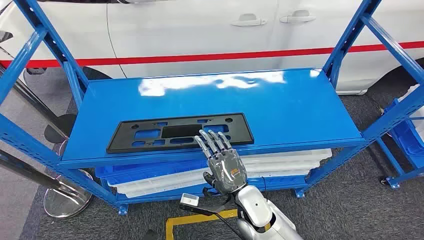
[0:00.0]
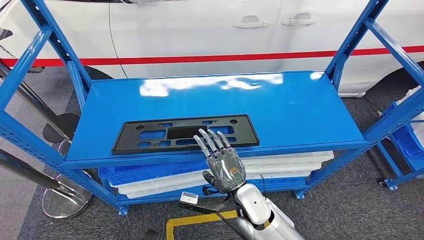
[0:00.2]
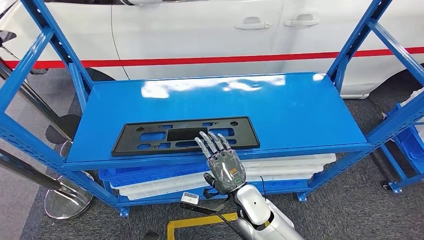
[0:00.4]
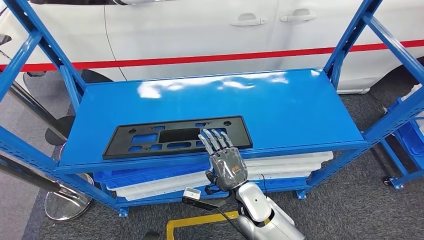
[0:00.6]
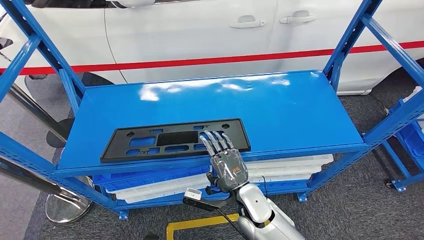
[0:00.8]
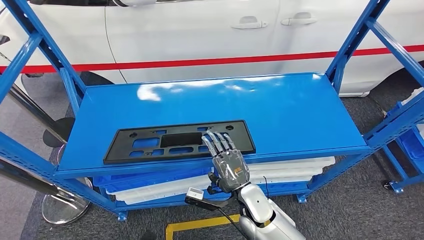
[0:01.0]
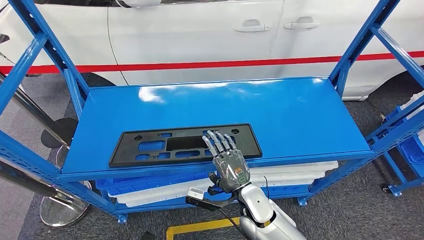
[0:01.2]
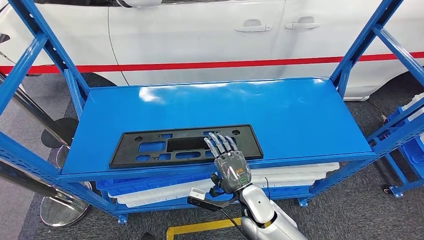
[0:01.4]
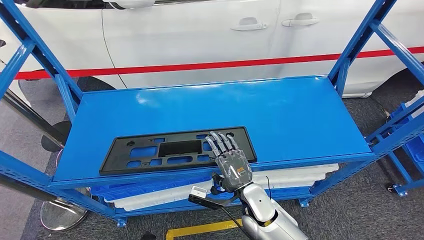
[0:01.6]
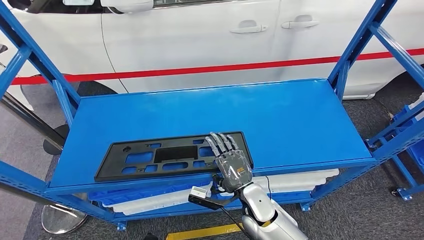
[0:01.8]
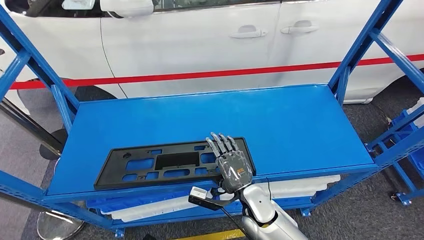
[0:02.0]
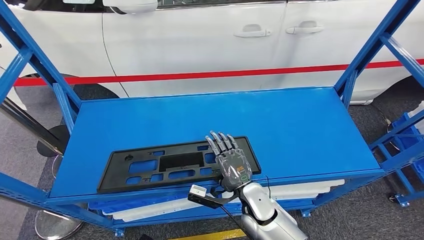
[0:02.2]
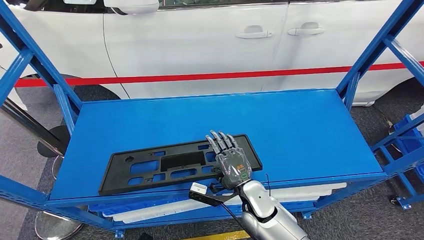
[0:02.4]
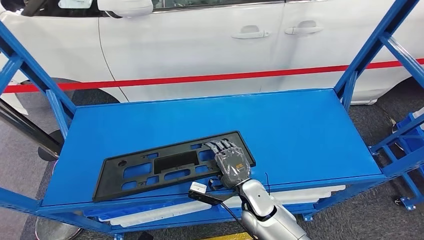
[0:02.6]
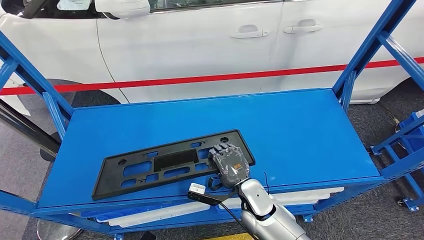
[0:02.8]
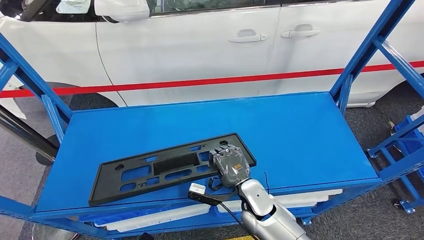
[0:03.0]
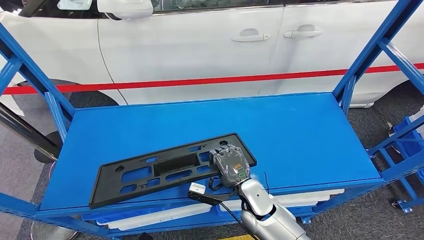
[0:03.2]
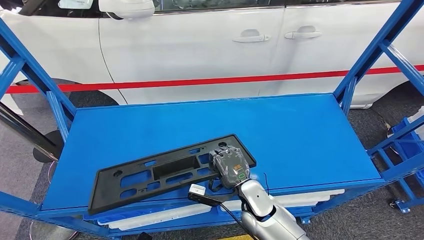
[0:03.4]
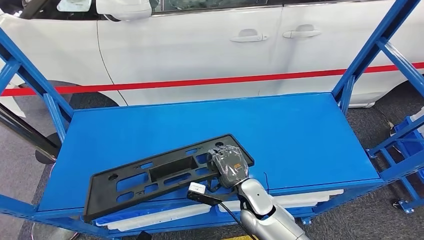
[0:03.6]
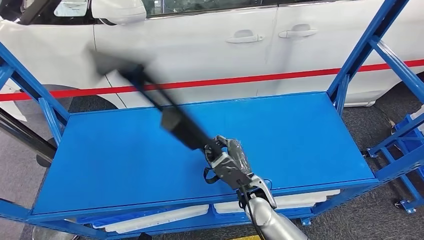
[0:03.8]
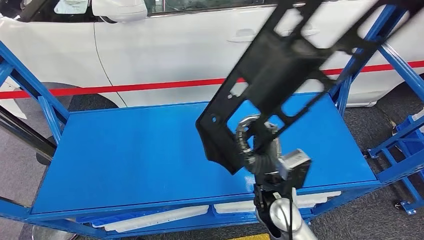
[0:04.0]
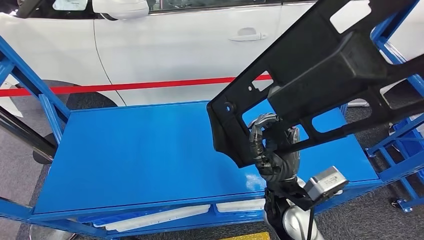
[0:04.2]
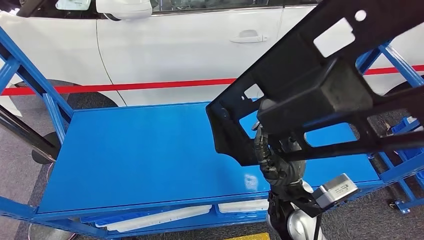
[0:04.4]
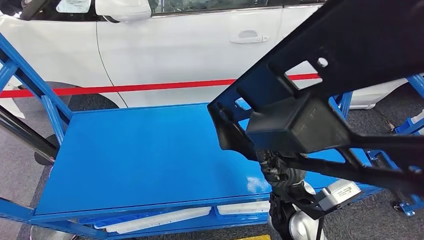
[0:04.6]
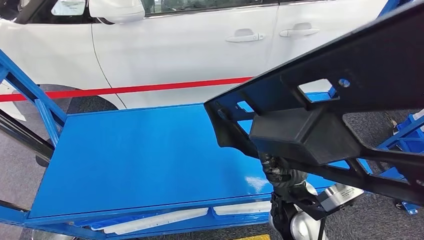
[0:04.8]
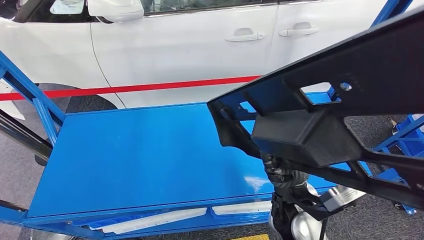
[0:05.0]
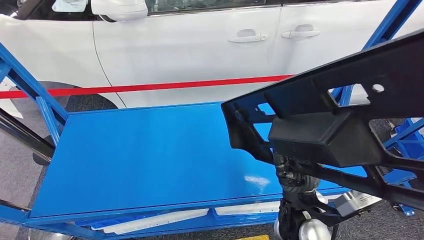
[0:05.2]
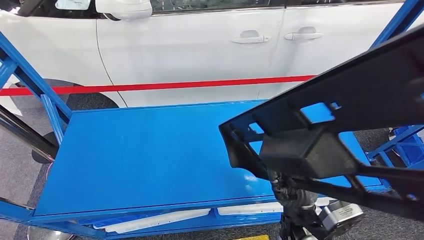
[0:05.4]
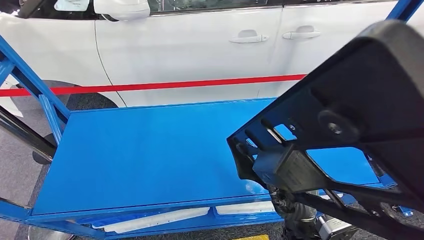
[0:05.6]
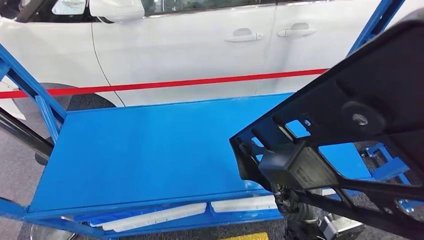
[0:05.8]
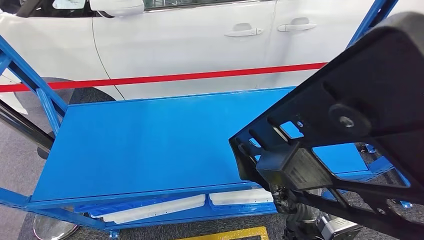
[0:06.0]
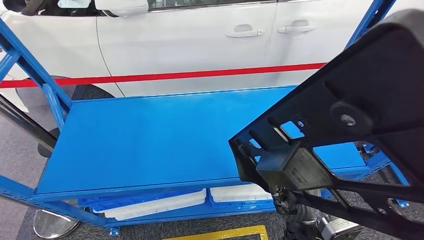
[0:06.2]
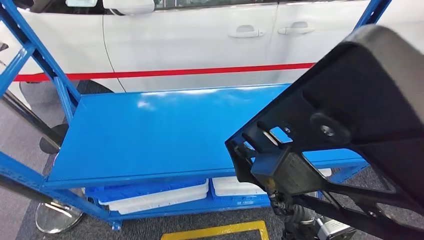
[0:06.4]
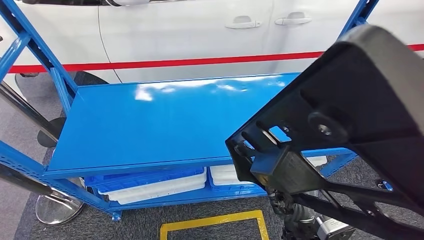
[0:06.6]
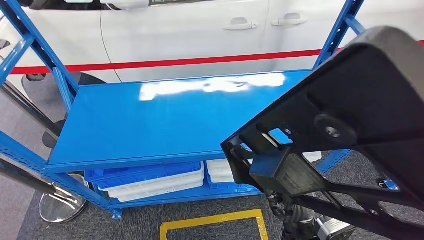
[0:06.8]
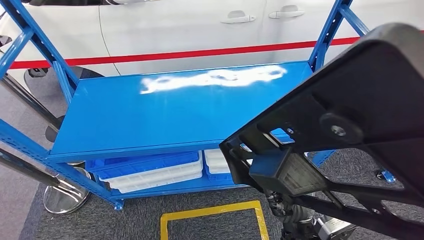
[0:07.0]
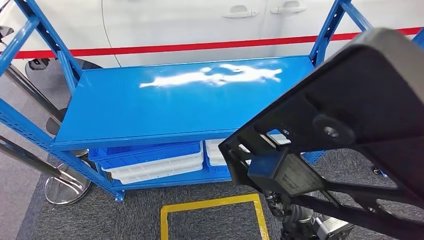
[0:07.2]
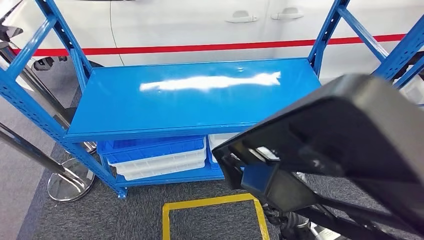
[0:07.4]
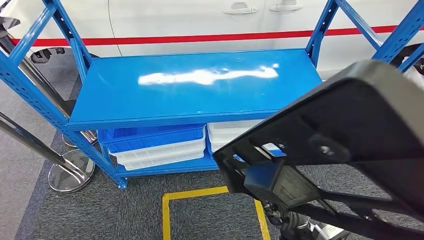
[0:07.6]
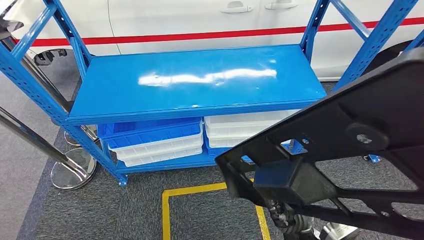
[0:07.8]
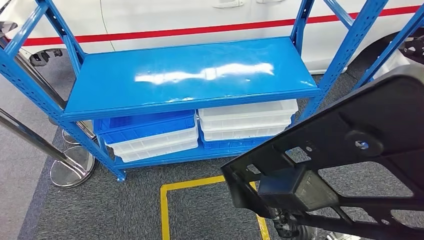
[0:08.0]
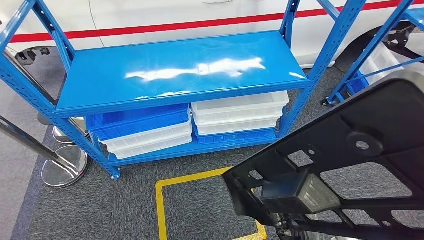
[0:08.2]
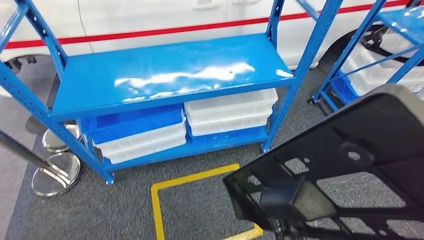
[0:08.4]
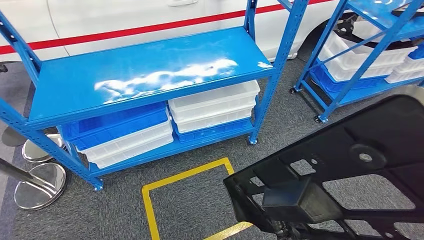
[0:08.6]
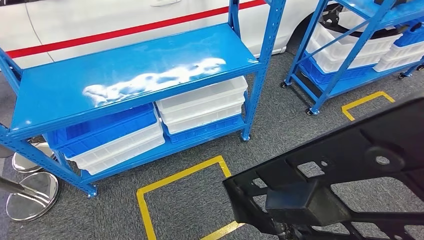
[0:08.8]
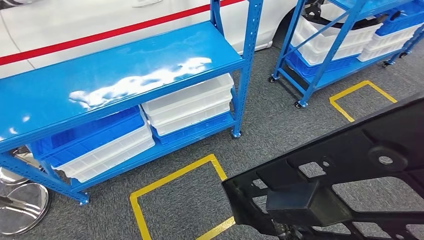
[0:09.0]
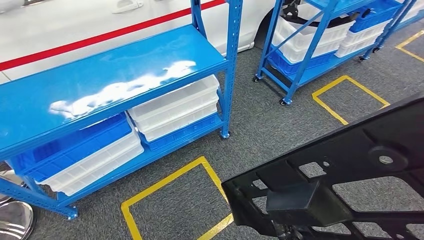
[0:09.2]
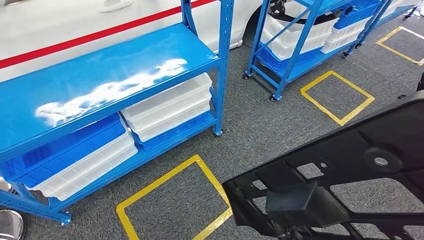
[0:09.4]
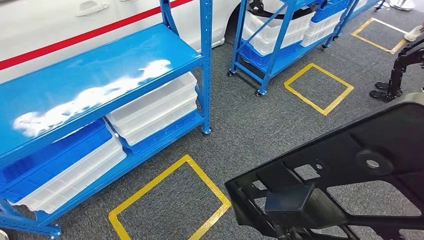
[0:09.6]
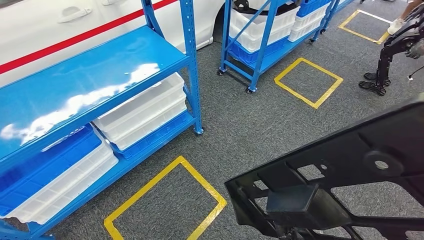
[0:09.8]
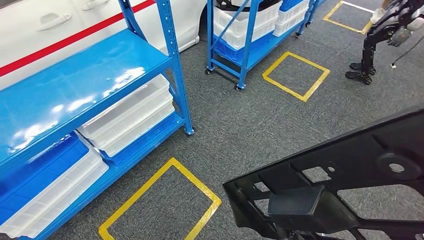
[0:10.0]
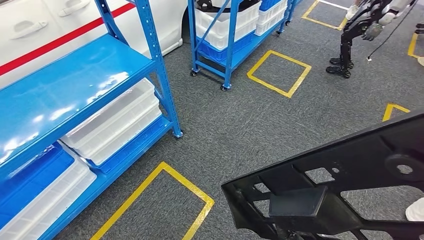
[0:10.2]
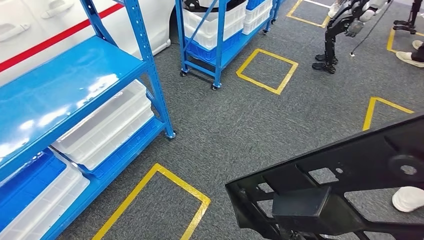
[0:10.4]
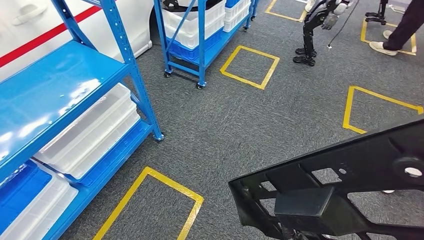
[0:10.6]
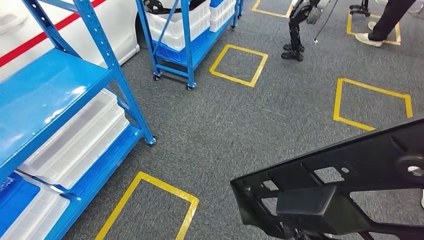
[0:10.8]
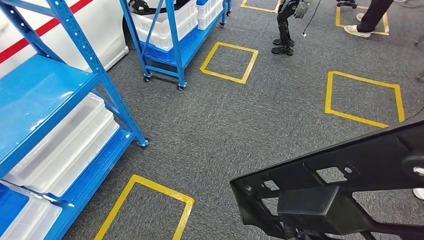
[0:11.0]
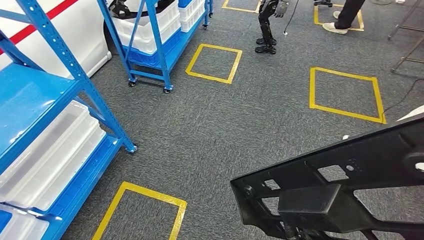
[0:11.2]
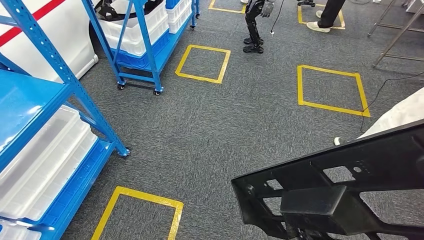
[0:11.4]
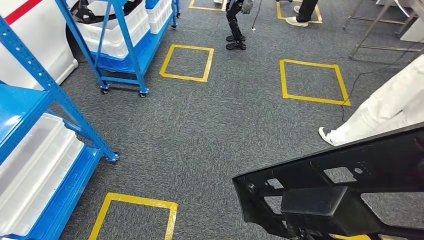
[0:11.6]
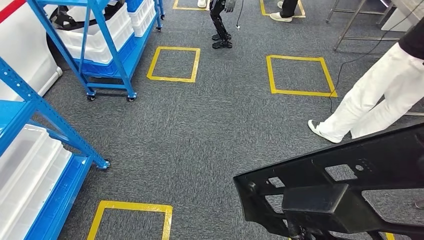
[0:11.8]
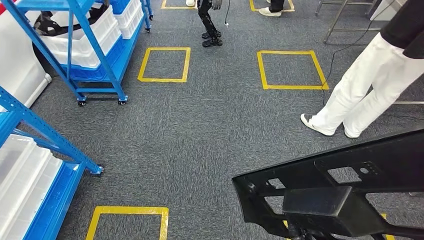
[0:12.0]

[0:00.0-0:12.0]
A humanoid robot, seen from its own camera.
Step, 0:00.0 to 0:04.0: Pick up the large material from the shelf.

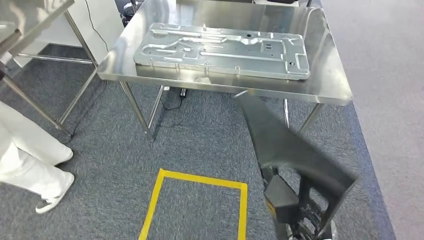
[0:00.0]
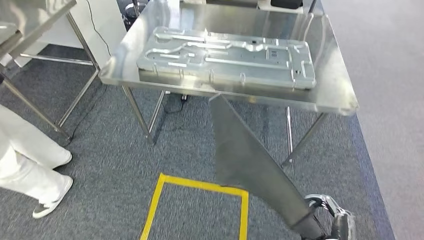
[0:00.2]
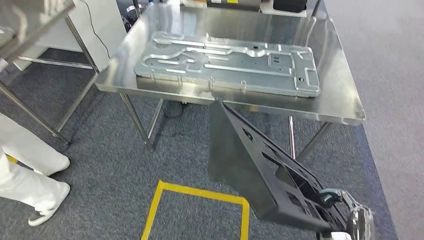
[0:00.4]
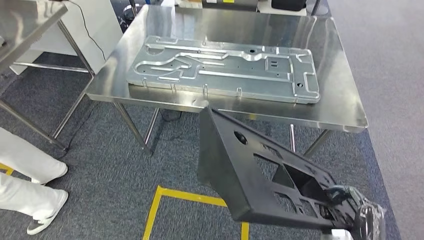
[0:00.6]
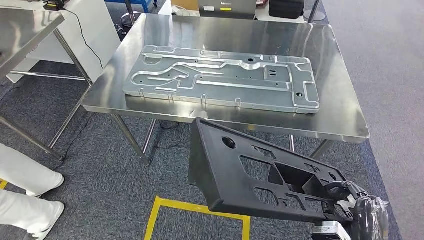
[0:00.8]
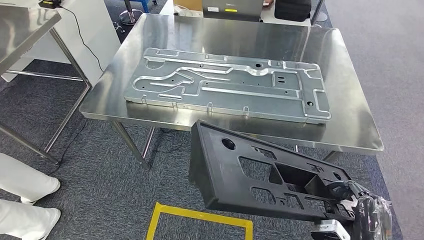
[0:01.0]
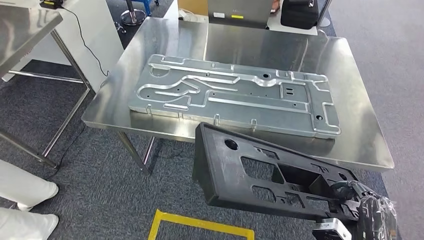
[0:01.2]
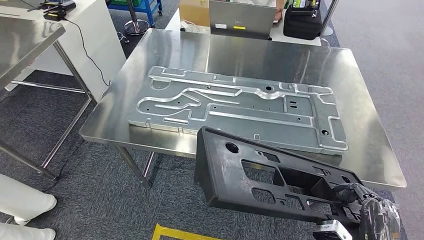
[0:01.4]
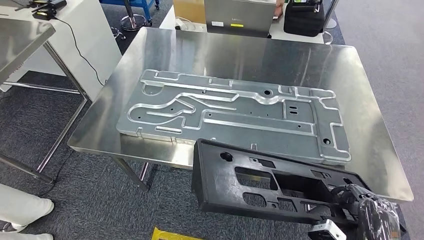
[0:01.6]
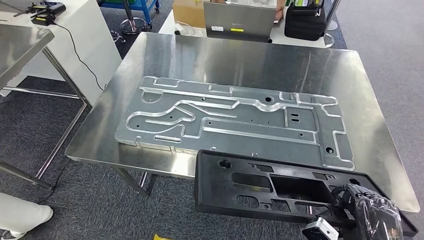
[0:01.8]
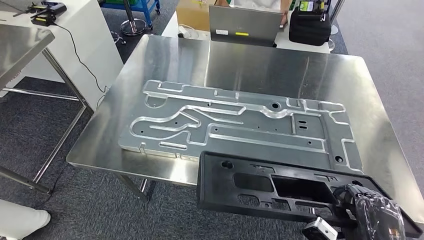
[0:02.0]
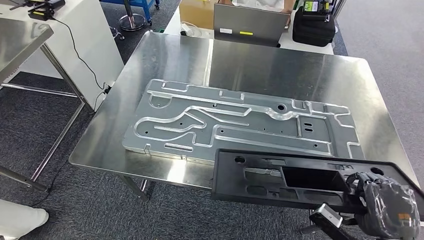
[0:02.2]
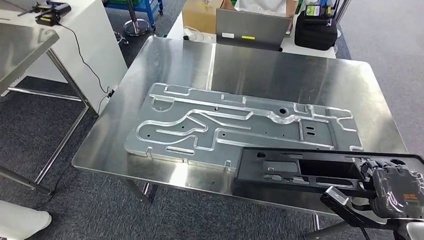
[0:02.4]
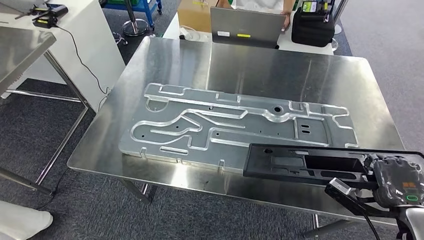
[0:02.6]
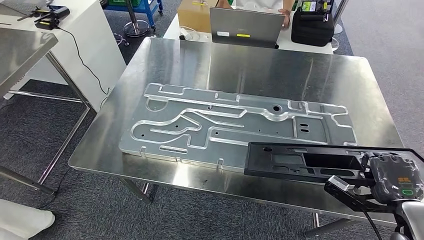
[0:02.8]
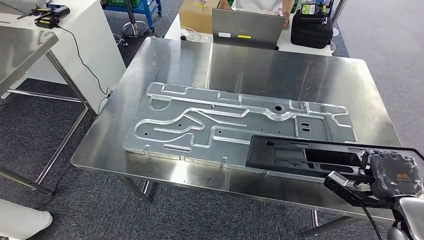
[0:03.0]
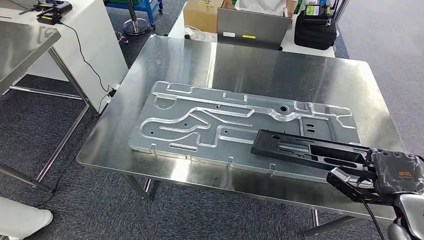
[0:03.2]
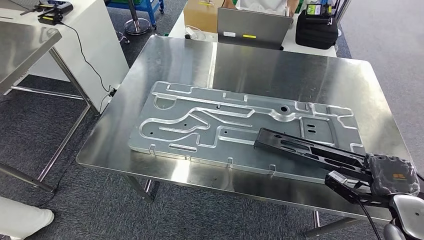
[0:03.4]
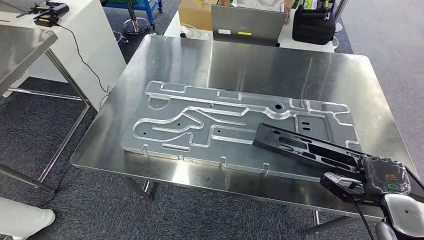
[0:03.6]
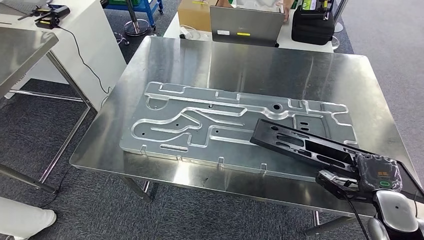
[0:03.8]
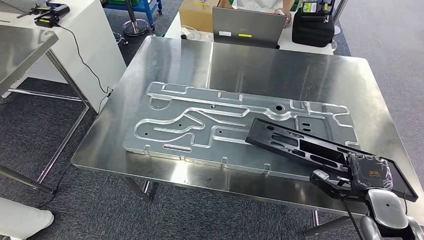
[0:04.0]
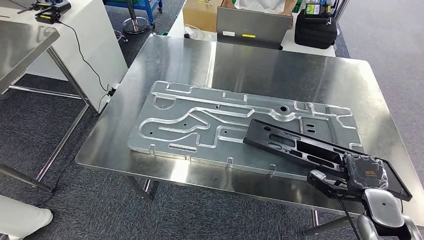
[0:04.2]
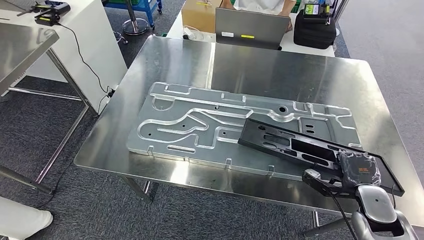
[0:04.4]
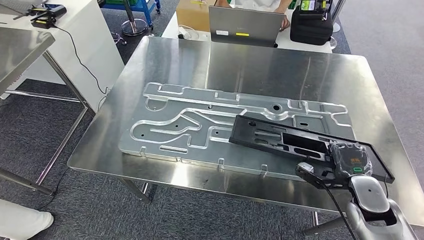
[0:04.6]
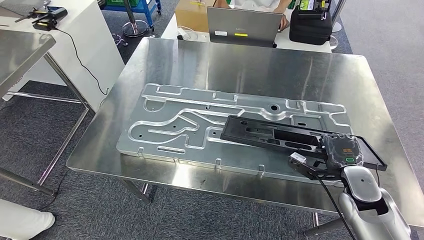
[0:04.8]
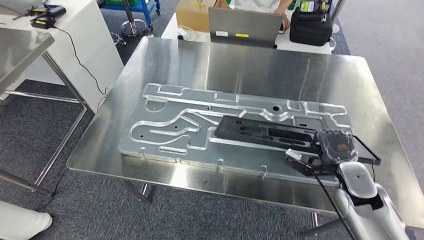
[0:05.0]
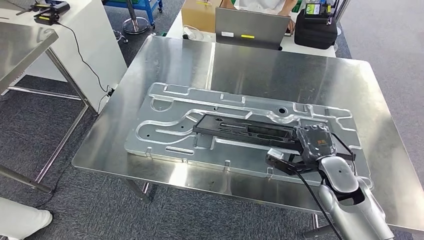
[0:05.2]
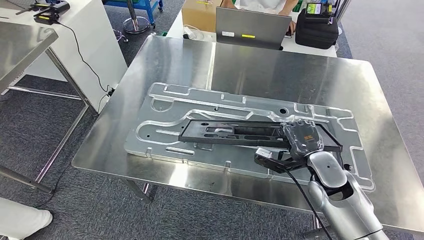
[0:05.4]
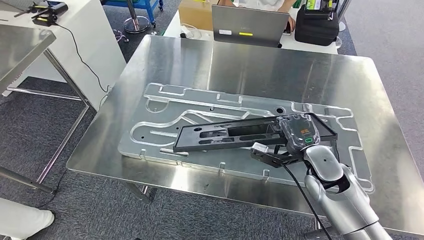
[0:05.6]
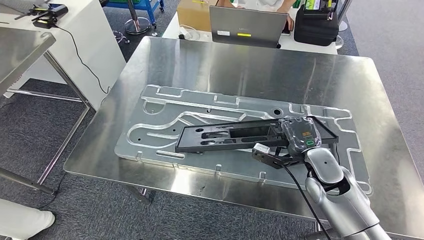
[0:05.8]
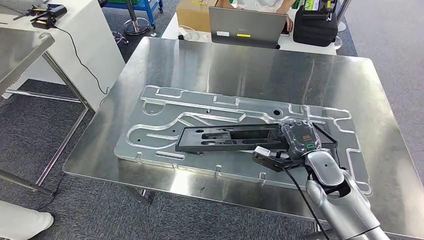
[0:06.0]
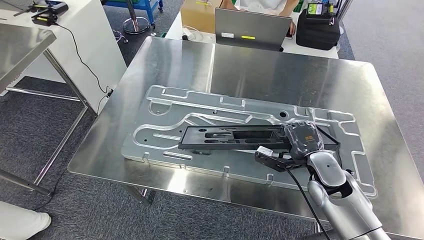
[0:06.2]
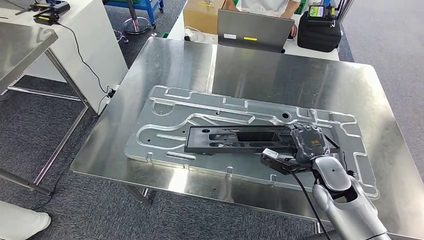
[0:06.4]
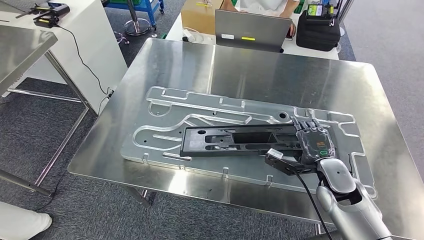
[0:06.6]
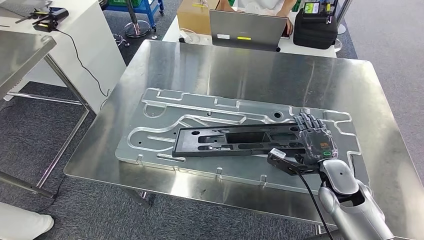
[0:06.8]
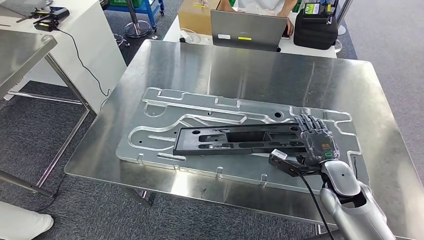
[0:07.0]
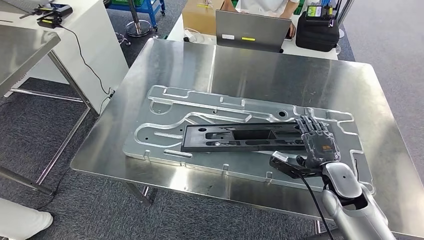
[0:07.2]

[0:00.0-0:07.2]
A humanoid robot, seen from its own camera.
Step, 0:00.0 to 0:02.0: Move the large material to the workbench.
